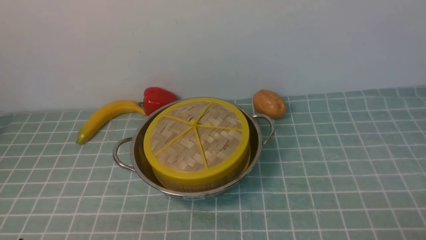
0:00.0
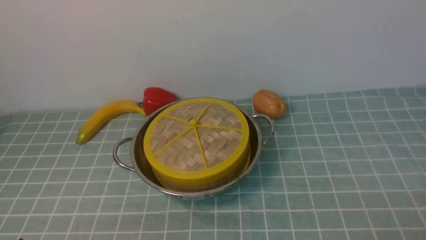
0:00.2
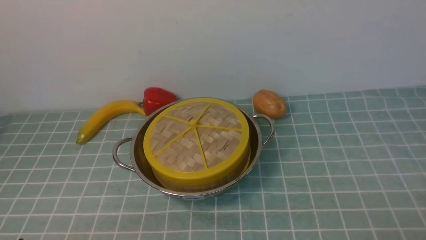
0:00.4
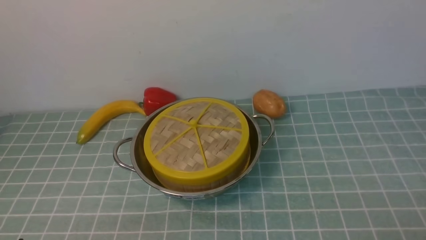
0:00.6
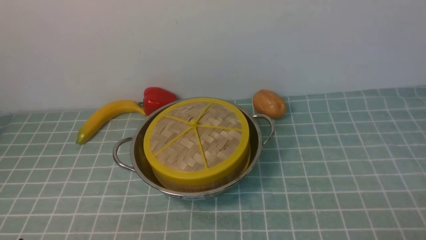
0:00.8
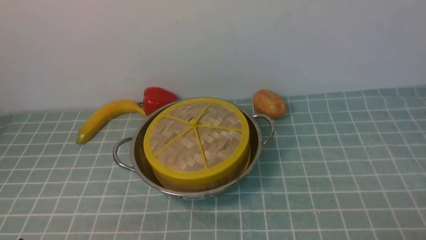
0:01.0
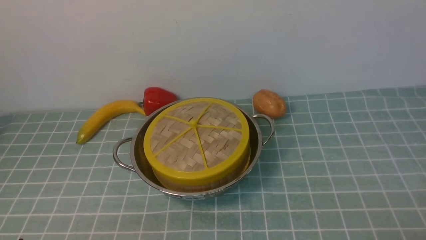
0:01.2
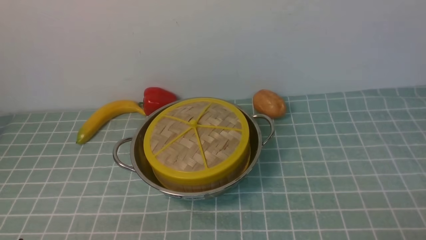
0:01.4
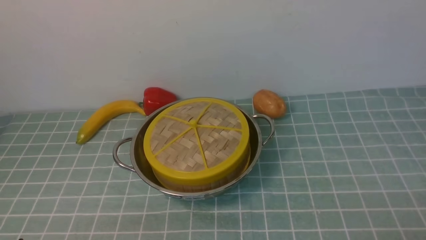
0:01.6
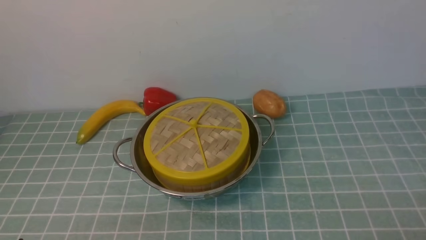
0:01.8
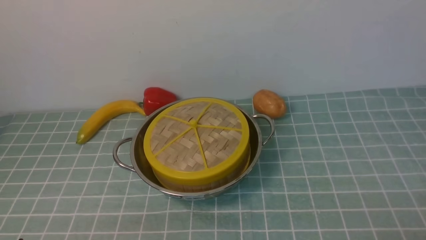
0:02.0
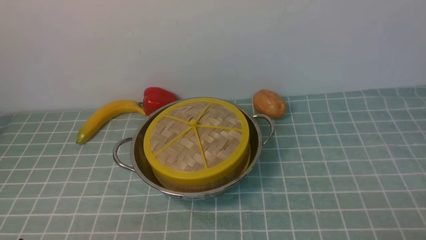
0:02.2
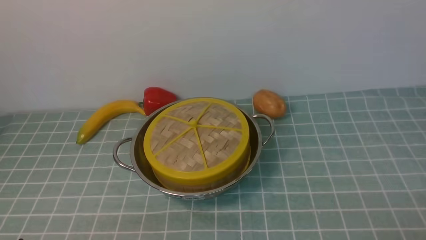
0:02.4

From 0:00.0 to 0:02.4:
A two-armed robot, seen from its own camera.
Task of the whole recording: place the steamer in the pot on the blue tablecloth, and put the lid on the steamer.
From 0:01.2 to 0:02.4: Both grippers stay about where they are.
